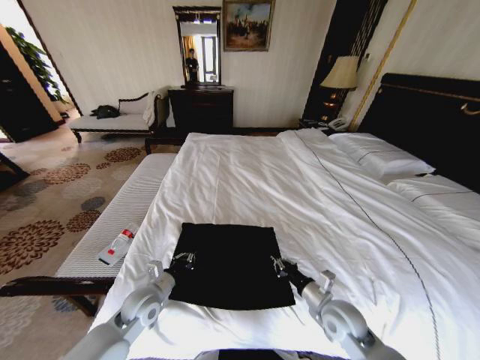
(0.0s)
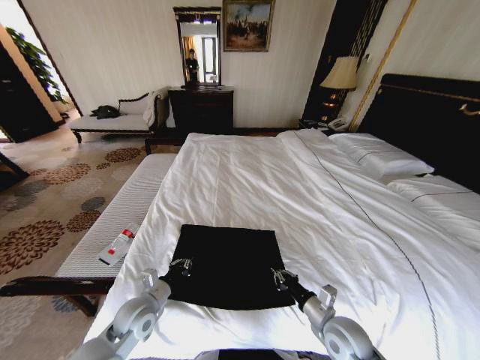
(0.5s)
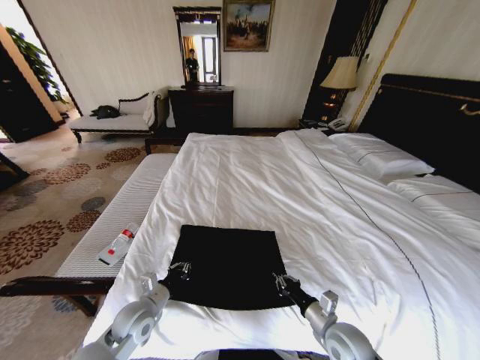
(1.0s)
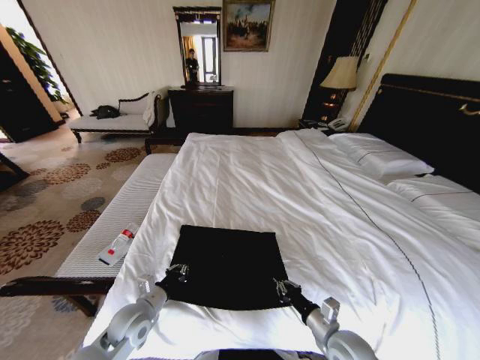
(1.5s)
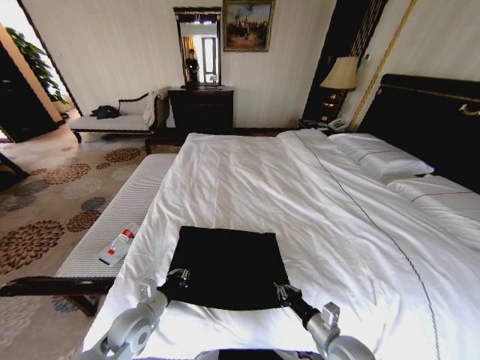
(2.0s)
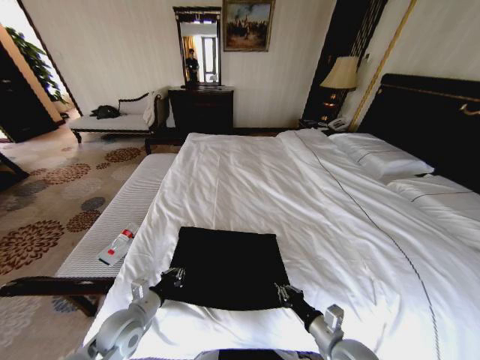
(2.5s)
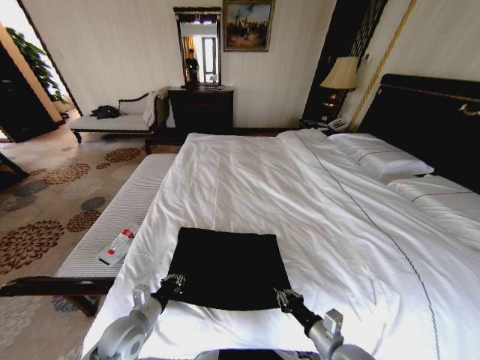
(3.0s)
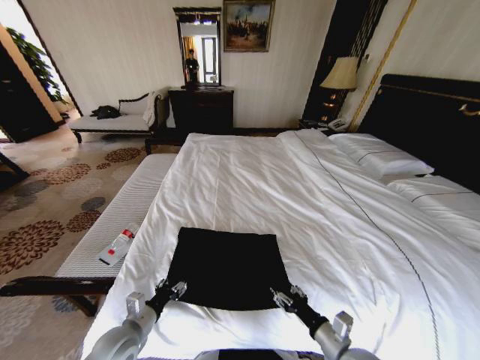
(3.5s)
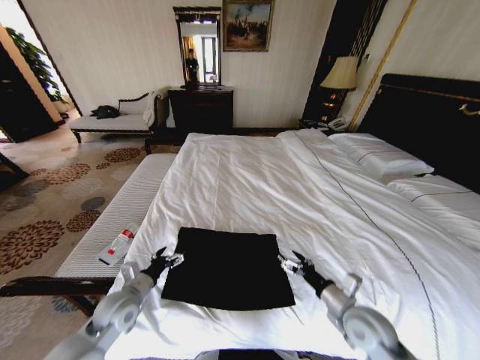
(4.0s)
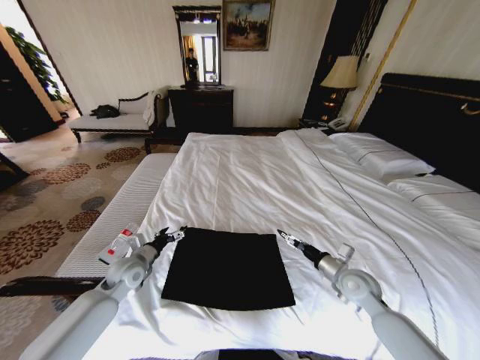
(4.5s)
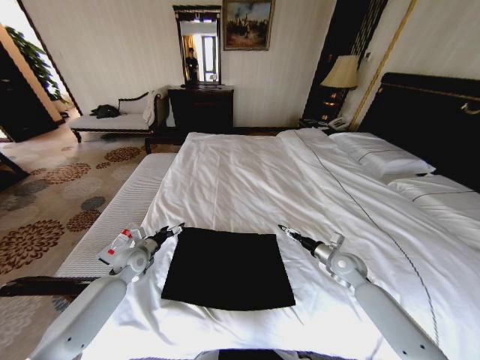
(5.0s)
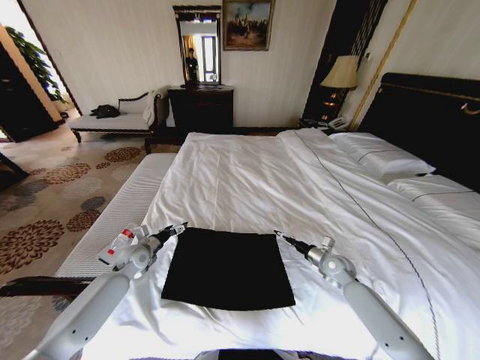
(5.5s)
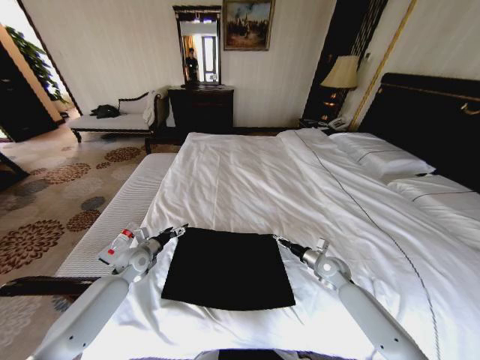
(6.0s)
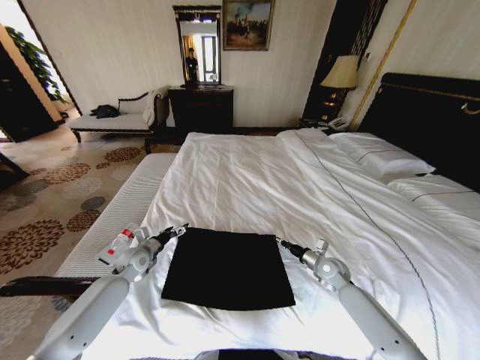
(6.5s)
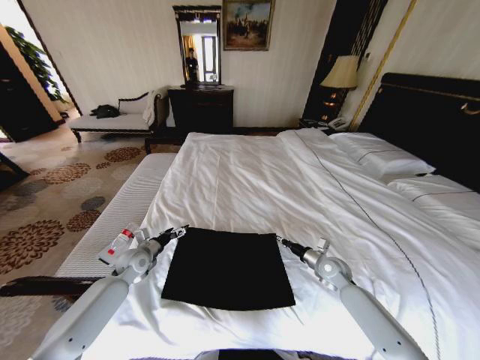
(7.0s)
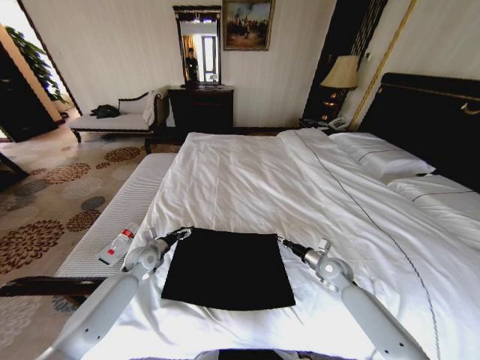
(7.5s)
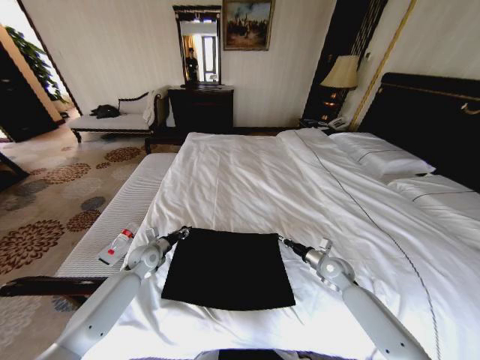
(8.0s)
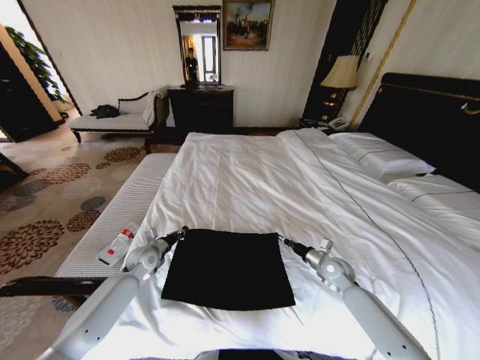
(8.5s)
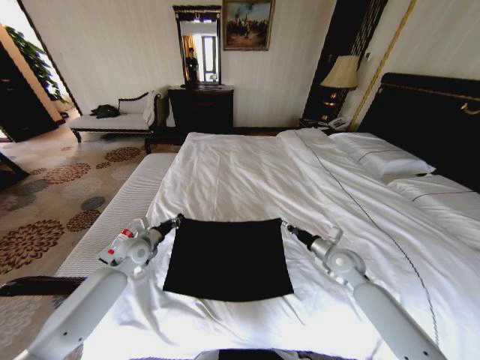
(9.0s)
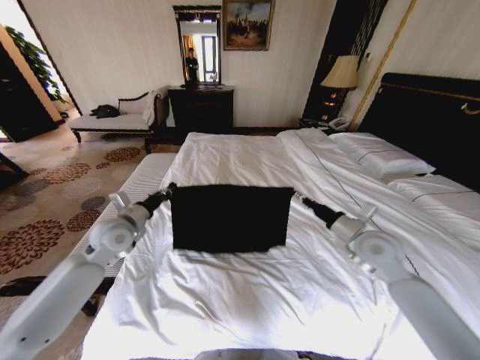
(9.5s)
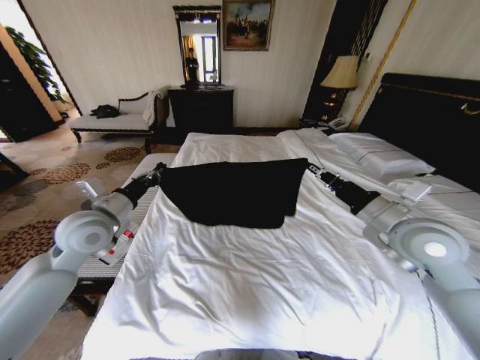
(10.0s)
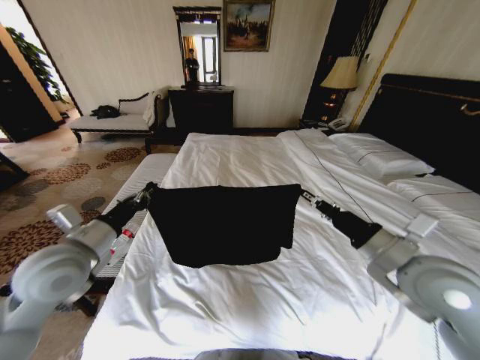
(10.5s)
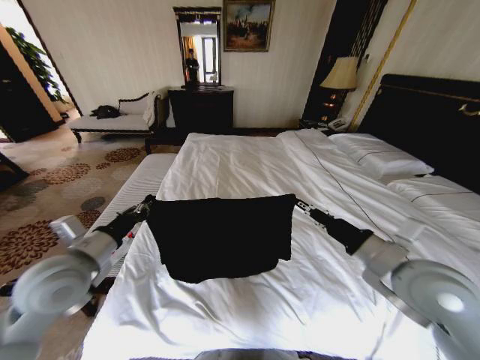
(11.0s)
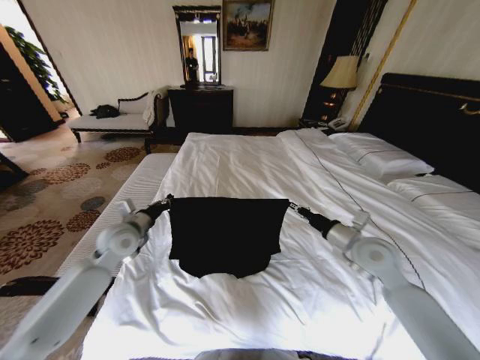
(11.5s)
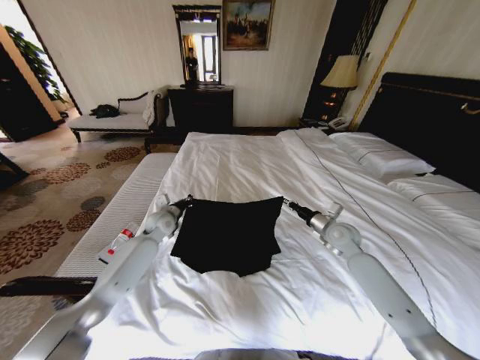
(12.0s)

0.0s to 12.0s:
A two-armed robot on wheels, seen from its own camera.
Task of the whole recording: Fold the clothes on the bed.
0.0s to 2.0s: The left gripper moves about 5 cm, while the right gripper moves backward, about 5 cm.
2.0s to 4.0s: The right gripper shifts about 10 cm upward and forward, and opens up; the left gripper shifts by some 5 cm, and opens up.
4.0s to 6.0s: The left gripper travels forward by some 15 cm, while the right gripper moves forward and downward, approximately 20 cm, and closes.
6.0s to 8.0s: The left gripper closes its fingers, while the right gripper closes.
8.0s to 10.0s: The grippers both shift upward by approximately 25 cm. The left gripper closes up.
10.0s to 12.0s: The right gripper goes roughly 25 cm downward and forward. Meanwhile the left gripper goes roughly 25 cm forward, downward and to the right.

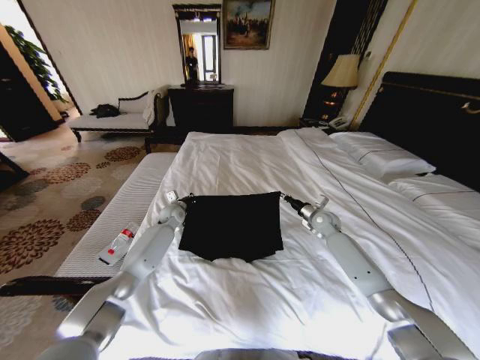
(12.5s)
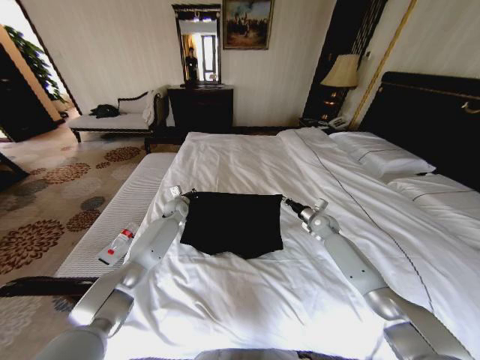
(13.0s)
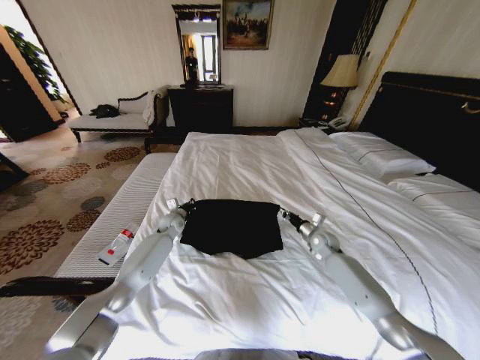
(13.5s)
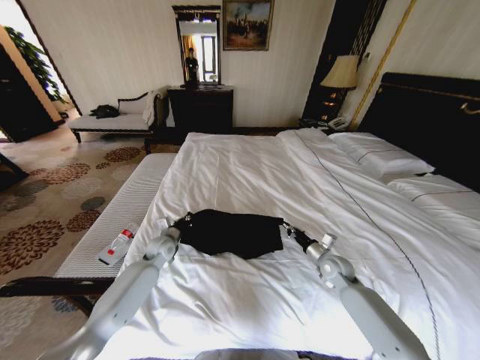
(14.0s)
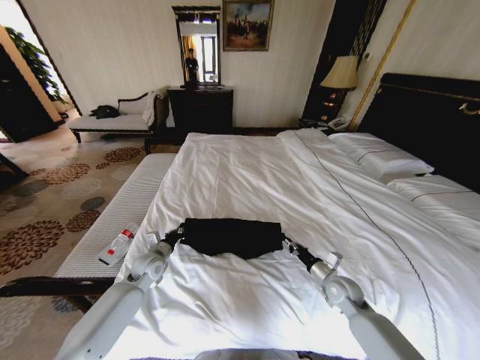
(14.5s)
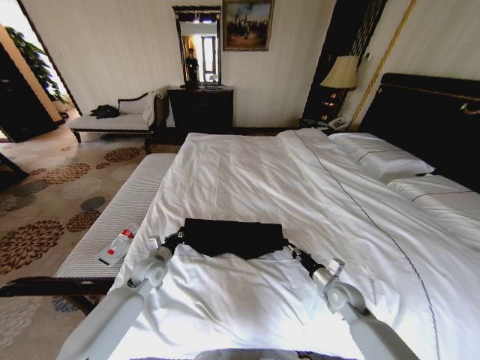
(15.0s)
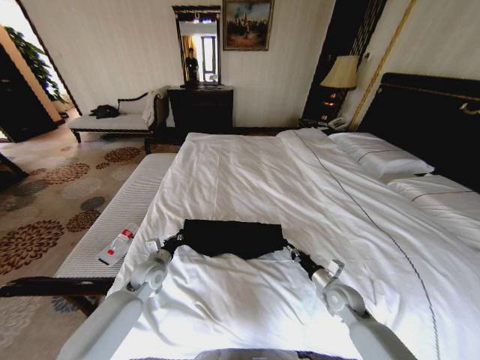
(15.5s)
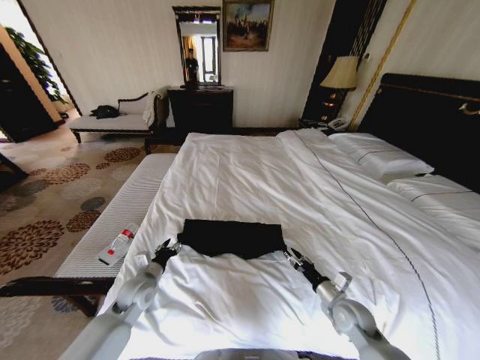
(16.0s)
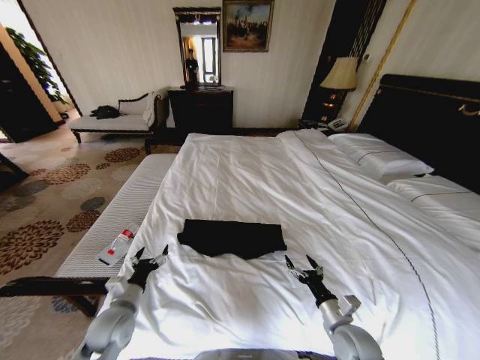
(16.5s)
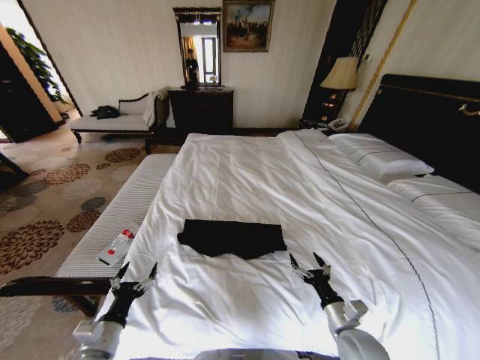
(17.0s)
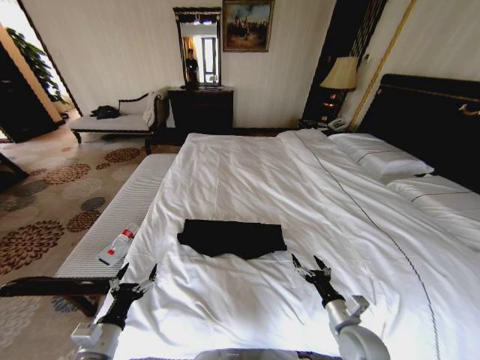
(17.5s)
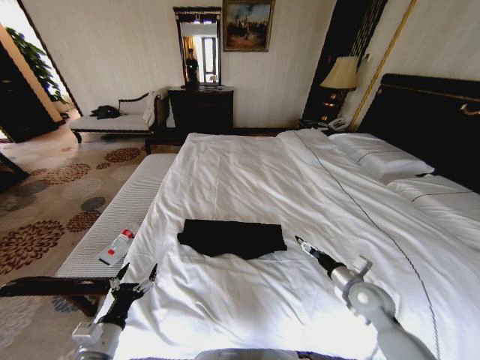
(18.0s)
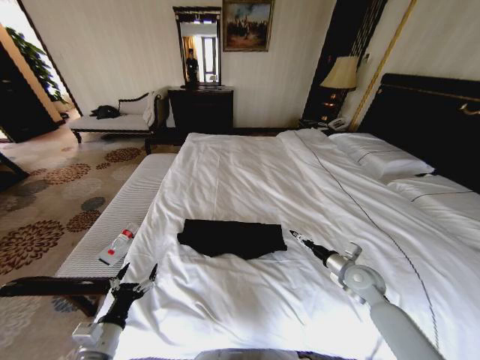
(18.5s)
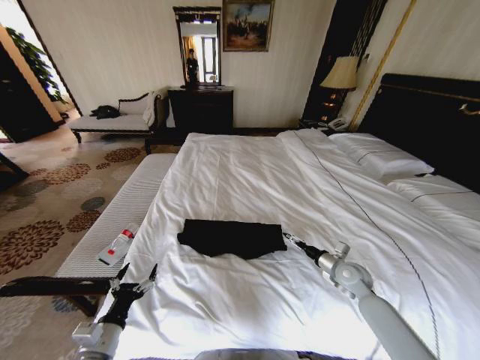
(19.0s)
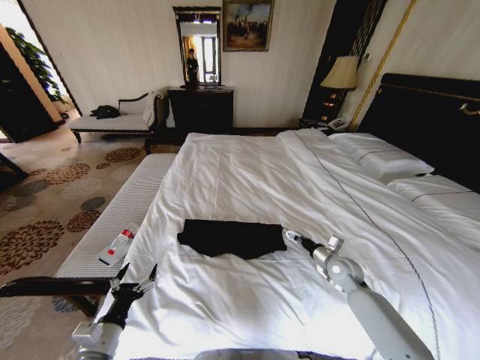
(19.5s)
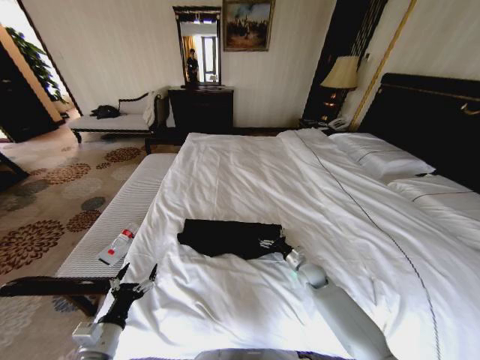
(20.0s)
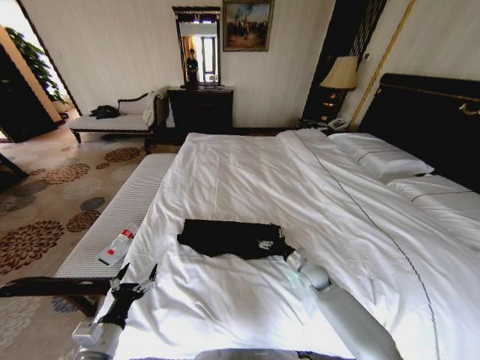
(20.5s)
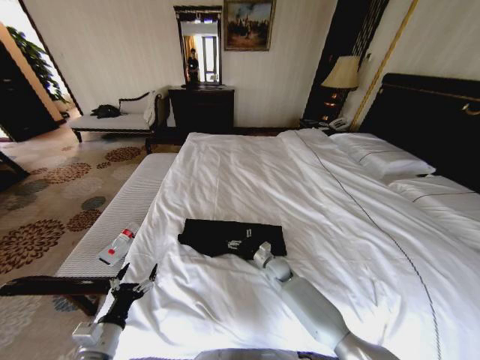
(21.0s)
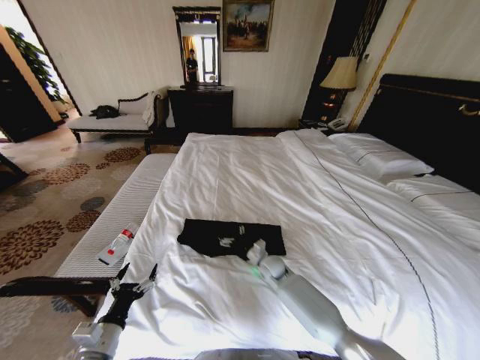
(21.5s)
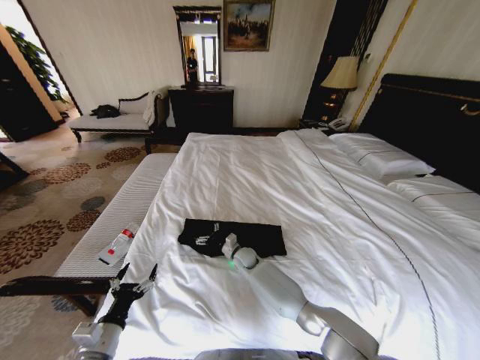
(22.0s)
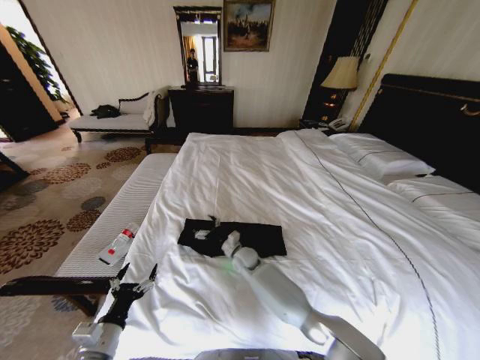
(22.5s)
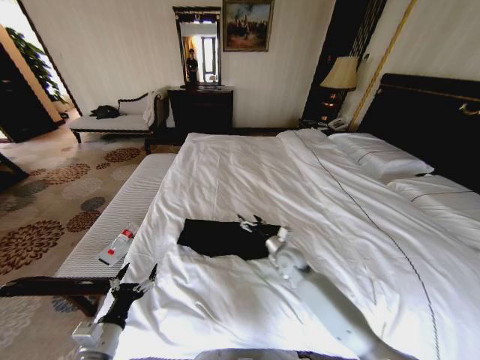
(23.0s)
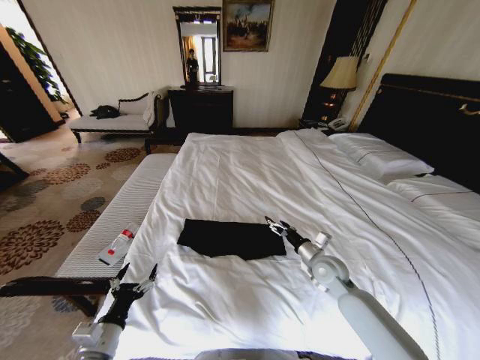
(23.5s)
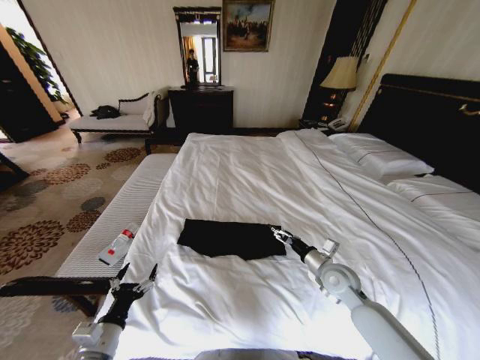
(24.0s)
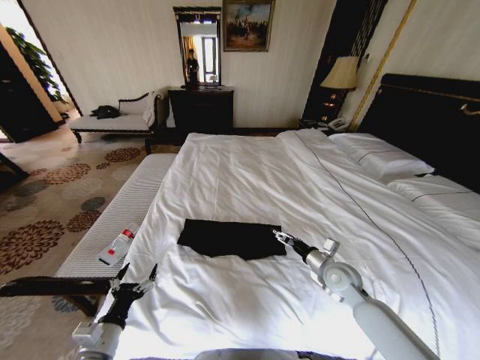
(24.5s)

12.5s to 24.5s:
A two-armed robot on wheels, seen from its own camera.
Task of the whole recording: Fold the clothes on the bed.
12.5s to 14.5s: The two grippers go roughly 20 cm backward.
14.5s to 16.5s: The two grippers go approximately 15 cm backward. The right gripper opens up. Meanwhile the left gripper opens its fingers.
16.5s to 18.5s: The left gripper is displaced backward by roughly 10 cm, while the right gripper is displaced forward and to the right by approximately 15 cm.
18.5s to 20.5s: The right gripper travels downward and to the left by about 15 cm.
20.5s to 22.5s: The right gripper goes roughly 25 cm to the left.
22.5s to 24.5s: The right gripper shifts some 30 cm to the right and backward.

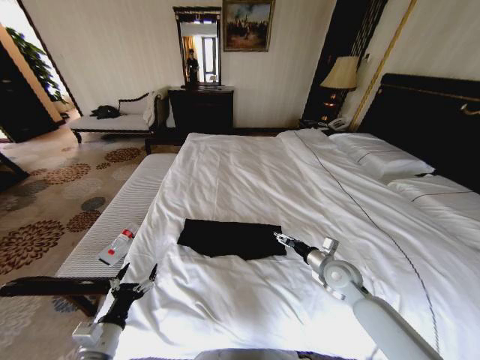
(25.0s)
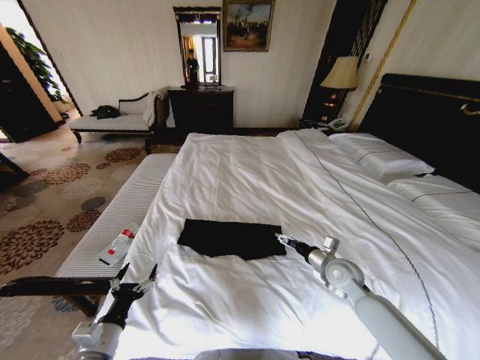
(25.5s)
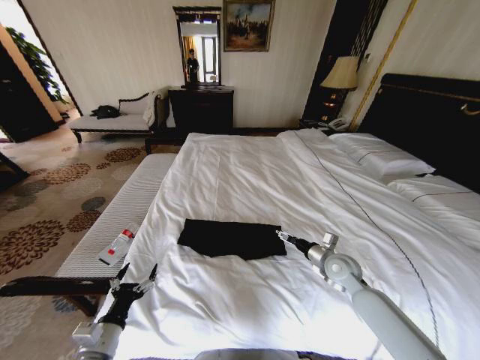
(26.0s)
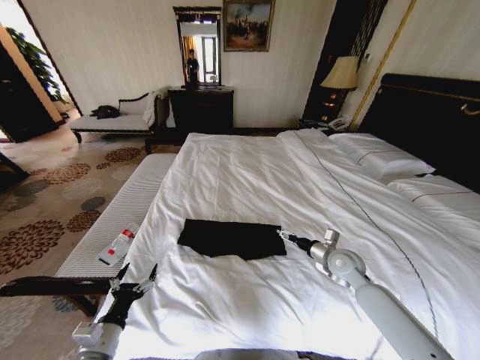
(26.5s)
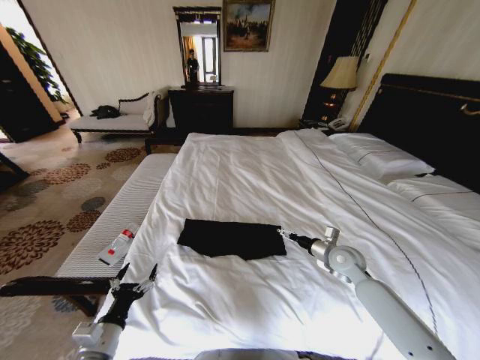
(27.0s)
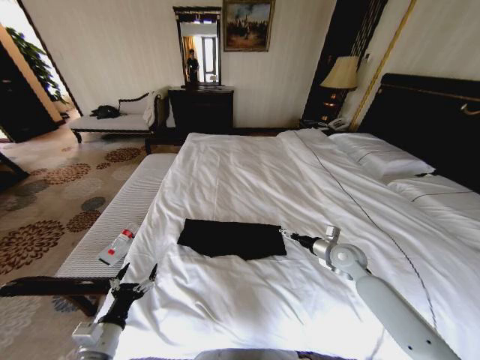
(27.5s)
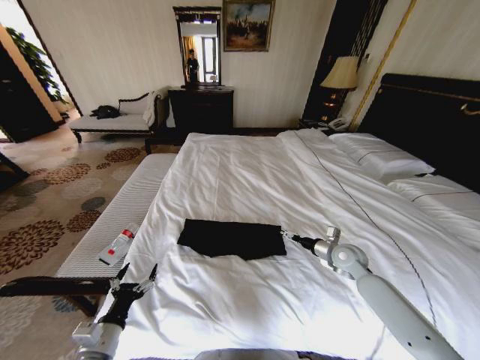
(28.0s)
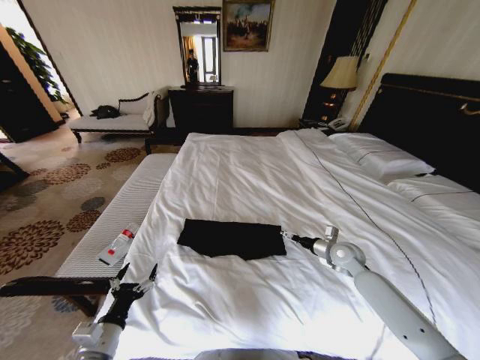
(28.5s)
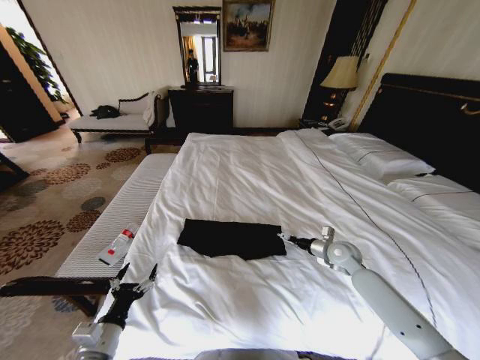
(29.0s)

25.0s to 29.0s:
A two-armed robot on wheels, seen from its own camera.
Task of the whole recording: Fold the clothes on the bed.
25.0s to 27.0s: The right gripper shifts by approximately 5 cm.
27.0s to 29.0s: The grippers stay close to where they were, moving slightly.
